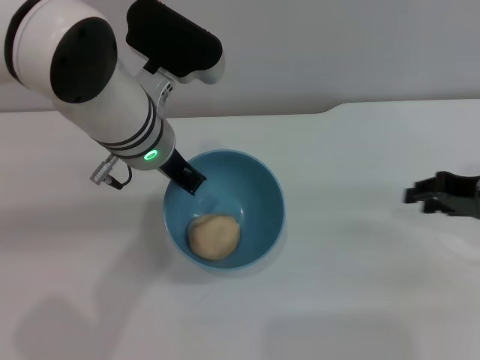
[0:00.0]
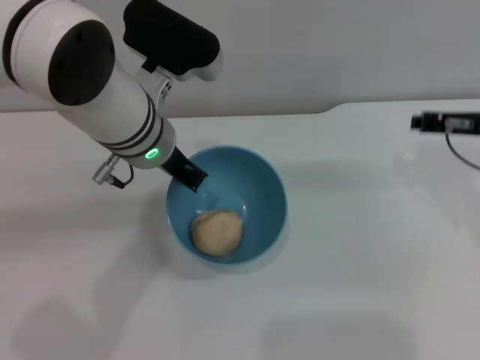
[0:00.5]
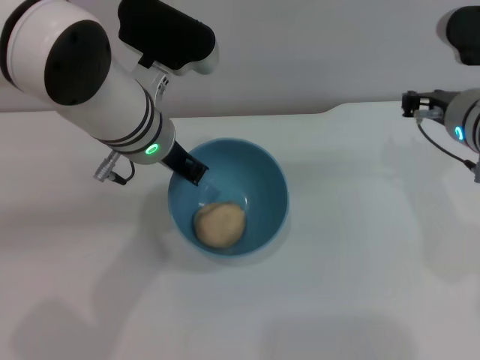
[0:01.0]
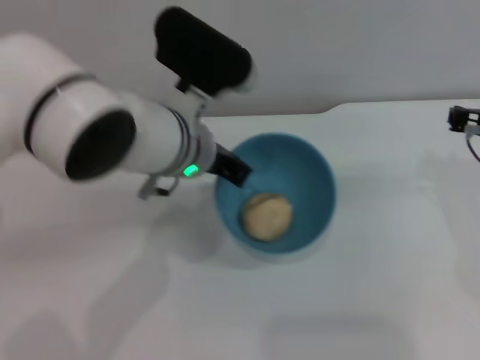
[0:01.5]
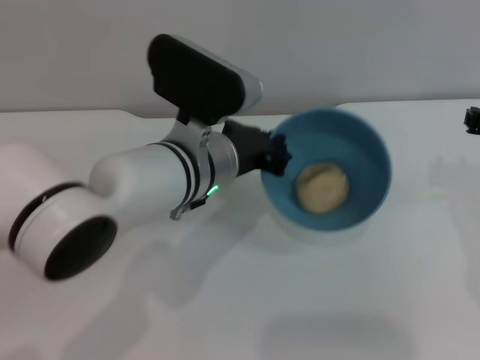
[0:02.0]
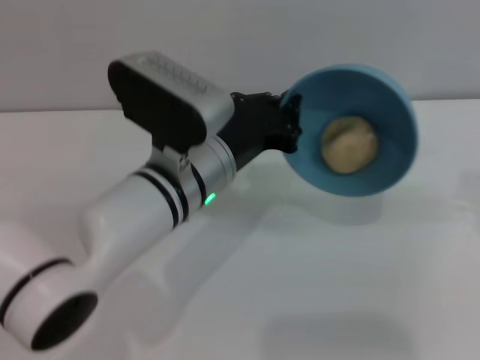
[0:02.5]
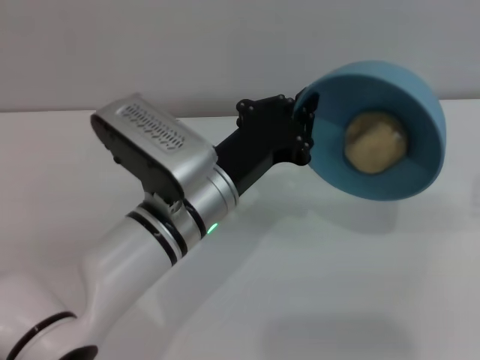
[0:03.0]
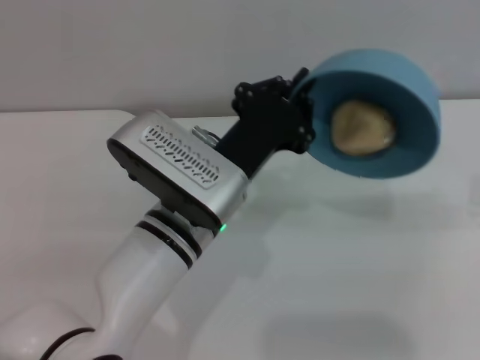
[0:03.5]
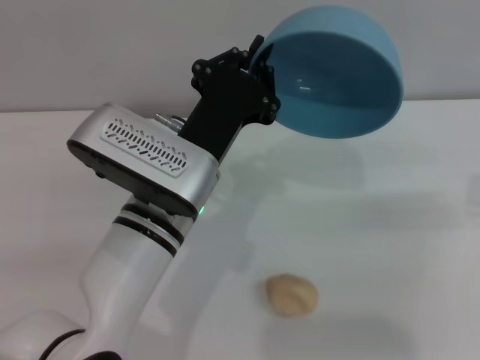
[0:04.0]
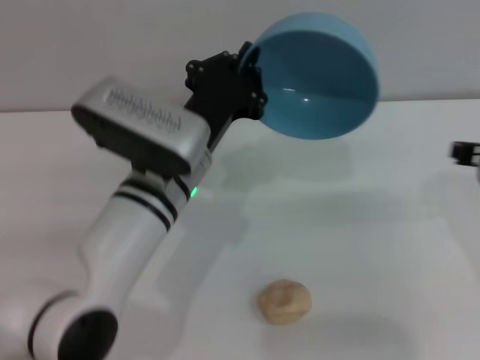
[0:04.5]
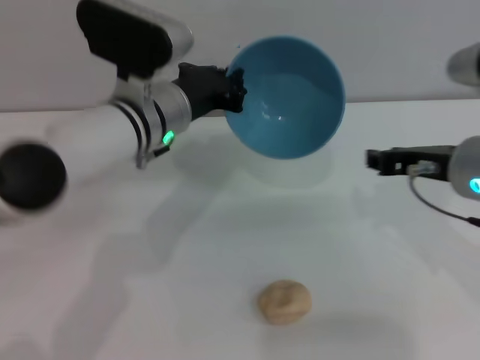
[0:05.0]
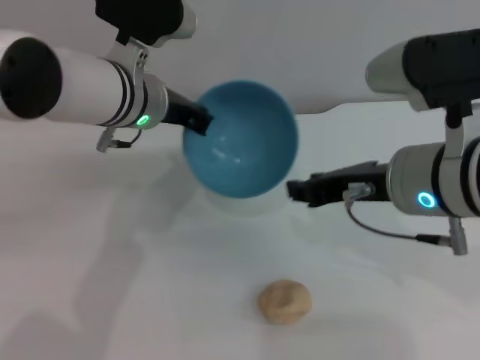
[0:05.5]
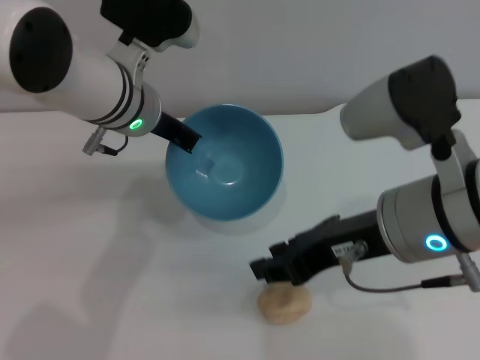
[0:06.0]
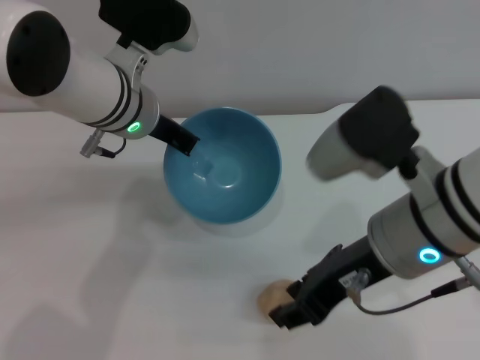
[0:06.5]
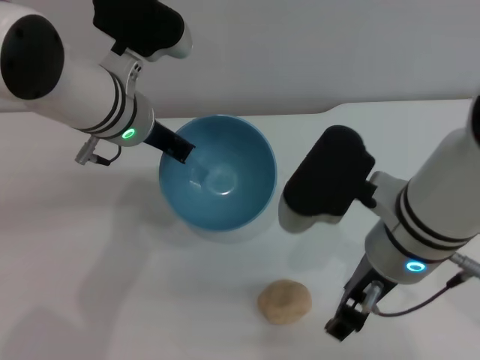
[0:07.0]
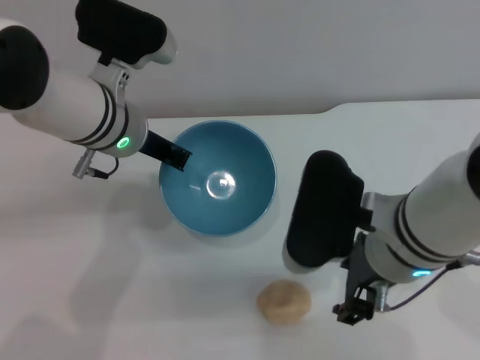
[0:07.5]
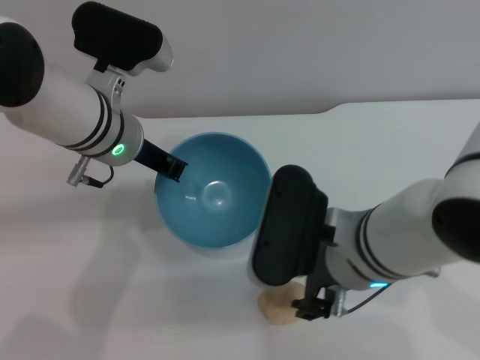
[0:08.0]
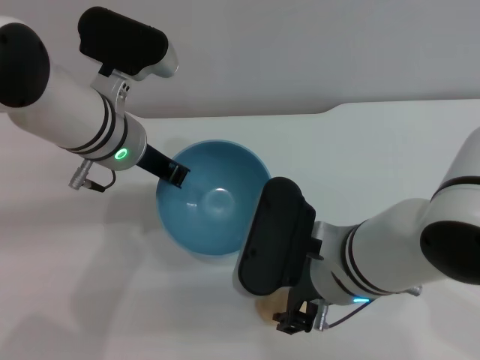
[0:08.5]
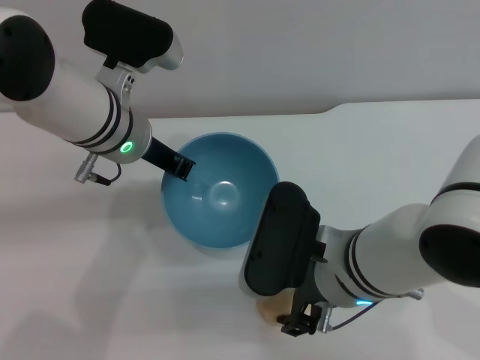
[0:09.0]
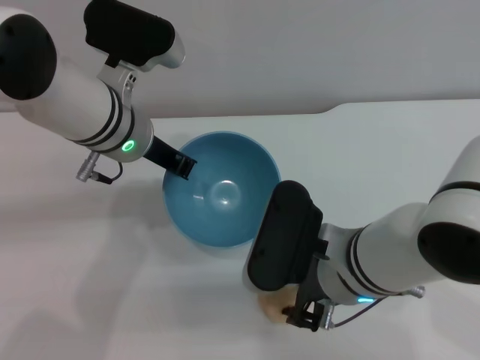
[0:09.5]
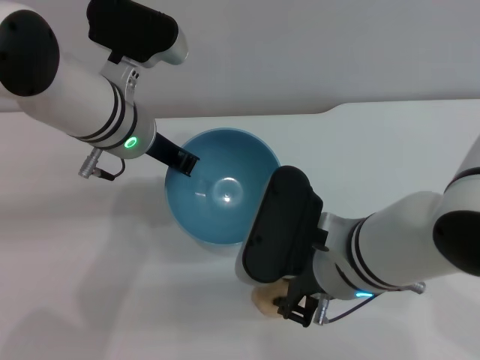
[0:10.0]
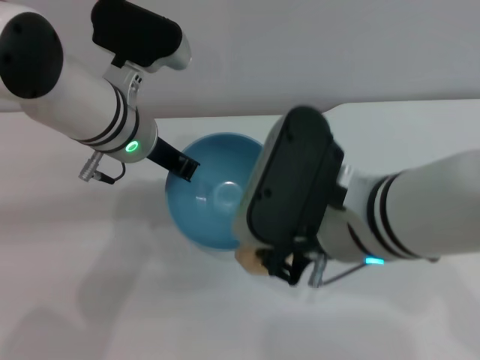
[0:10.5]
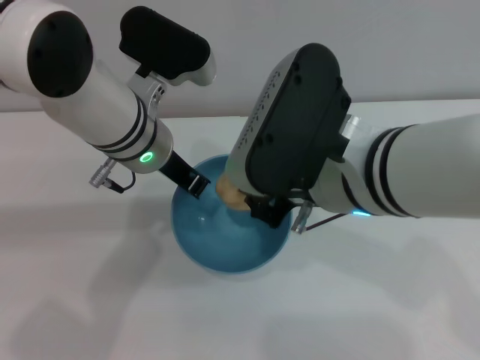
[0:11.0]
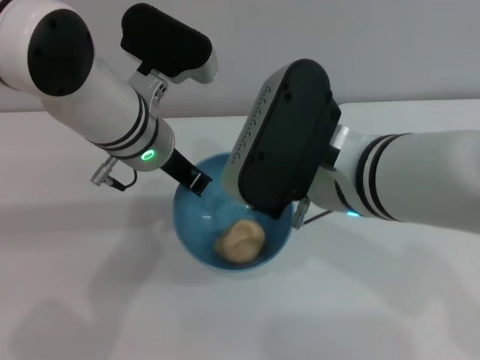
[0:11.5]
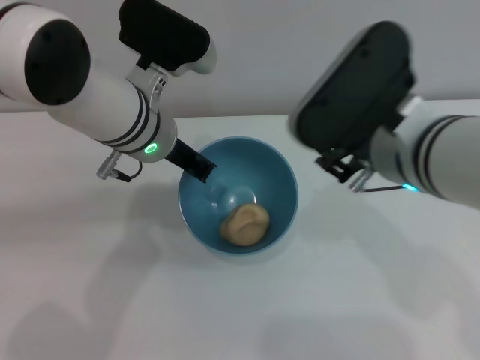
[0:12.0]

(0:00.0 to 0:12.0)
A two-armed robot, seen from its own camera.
Task of the whole recording: put the egg yolk pastry into the blue bowl and pour it out repeatedly.
Step, 0:00.0 - 0:04.0: Pour the egg yolk pastry out of bowl.
Step, 0:04.5 - 0:10.0: Pick up the egg yolk pastry with the right gripper.
Step, 0:10.5 - 0:11.5: Place the egg yolk pastry into the bowl.
0:00.0 - 0:02.0: The left gripper shifts by roughly 5 cm.
0:04.0 - 0:06.0: The right gripper heads to the left, covering about 15 cm. The left gripper is displaced forward and upward by roughly 15 cm.
0:06.0 - 0:08.0: The right gripper is displaced downward by some 5 cm, and opens its fingers.
0:08.0 - 0:10.0: The right gripper closes.
0:10.0 - 0:12.0: The right gripper heads upward, covering about 10 cm, and closes and opens again.

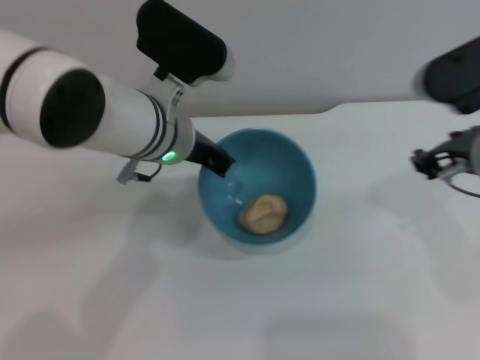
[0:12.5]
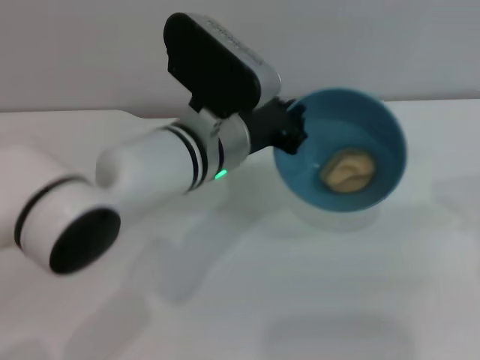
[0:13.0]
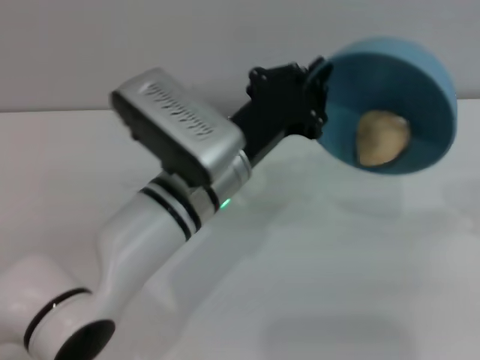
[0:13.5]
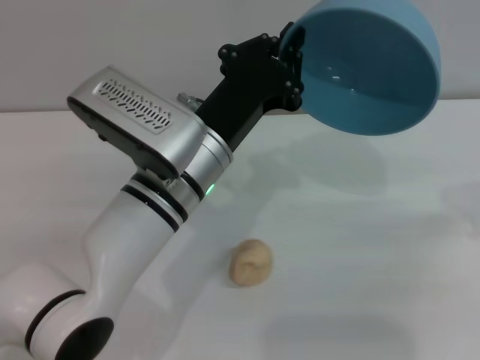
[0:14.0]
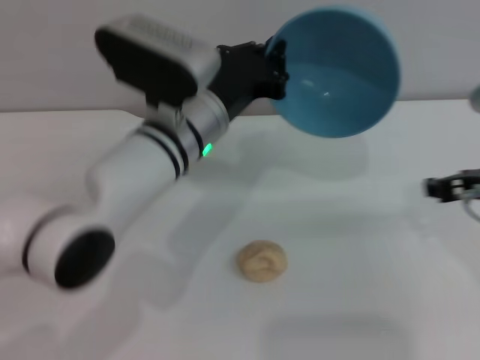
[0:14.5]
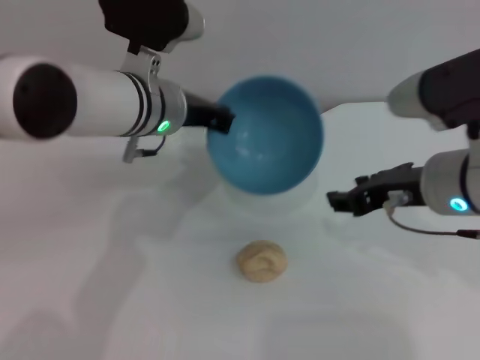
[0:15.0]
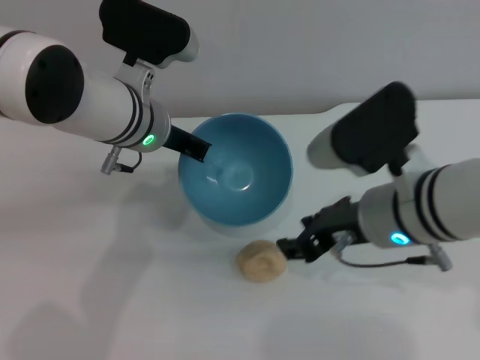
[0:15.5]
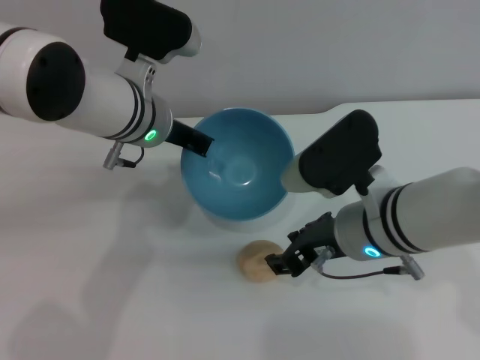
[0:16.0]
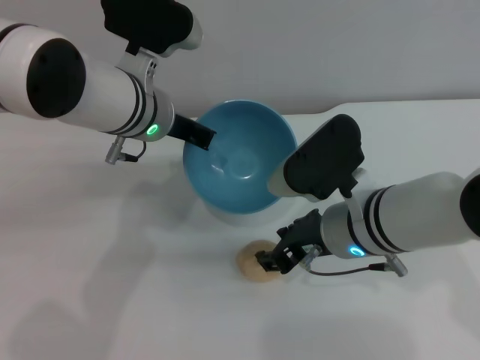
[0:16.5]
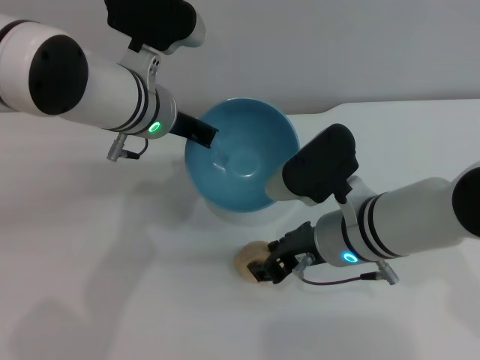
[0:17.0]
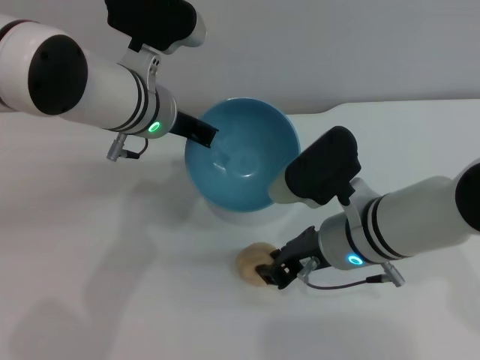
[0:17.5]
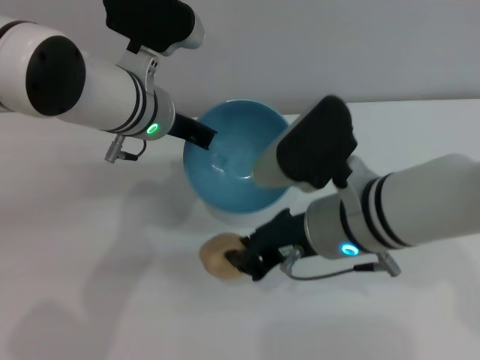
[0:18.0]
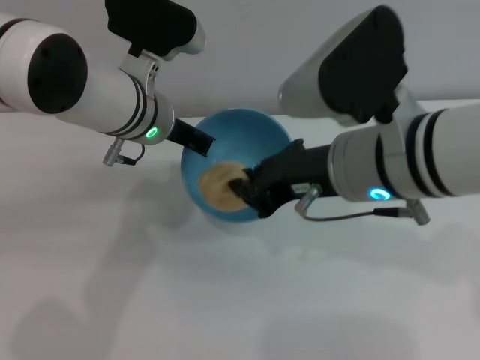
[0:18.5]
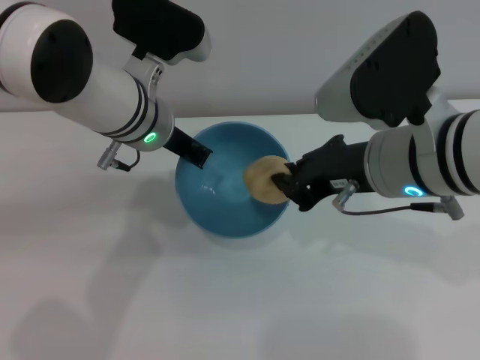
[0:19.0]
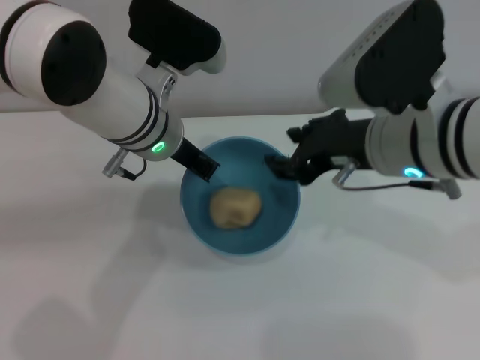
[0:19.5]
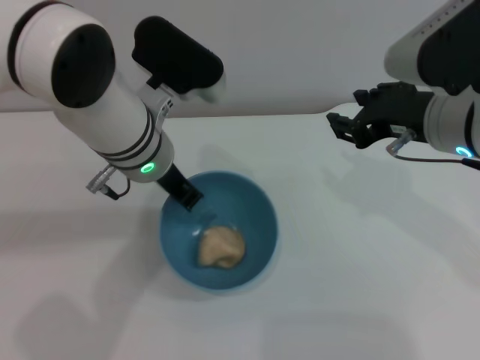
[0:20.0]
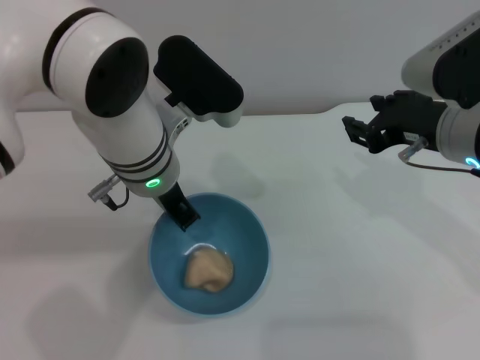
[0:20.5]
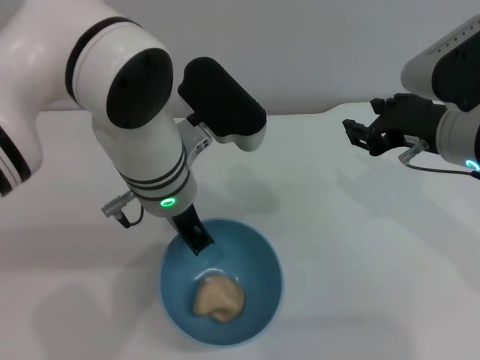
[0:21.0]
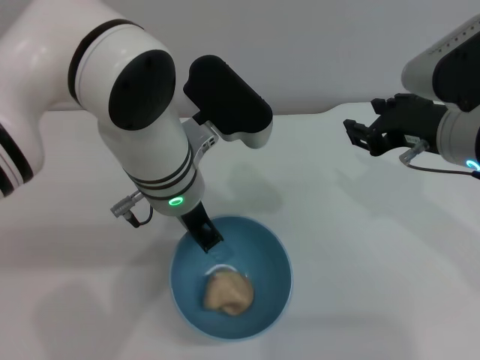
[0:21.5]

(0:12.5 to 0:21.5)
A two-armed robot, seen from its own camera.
Task of the whole recording: put the egg yolk pastry into the blue bowl and pour it out repeatedly.
Step, 0:12.5 - 0:14.0: Pour the egg yolk pastry out of bowl.
Step, 0:14.5 - 0:18.0: Pick up the egg yolk pastry with the right gripper.
Step, 0:18.5 - 0:19.5: Place the egg yolk pastry into the bowl.
0:14.5 - 0:17.0: The right gripper is displaced to the left and downward by some 15 cm, while the left gripper ends up roughly 5 cm from where it was.
0:17.0 - 0:19.5: The right gripper is displaced upward by some 10 cm, and closes and opens again.
0:19.5 - 0:21.5: The right gripper shifts roughly 5 cm to the right.

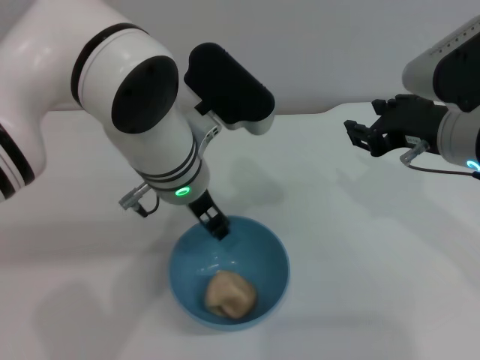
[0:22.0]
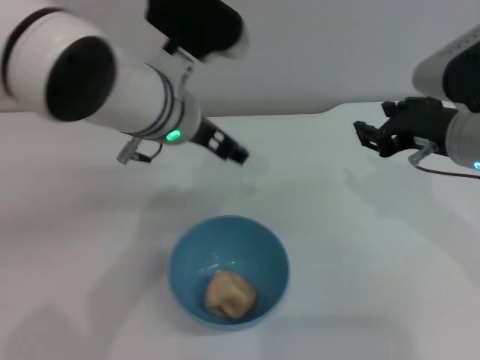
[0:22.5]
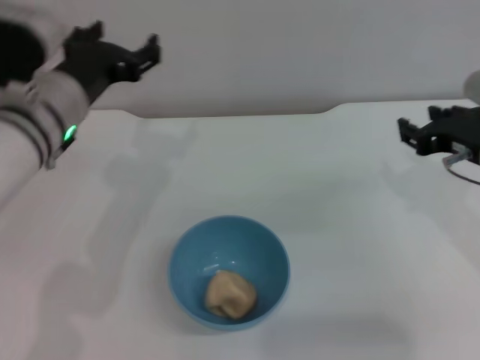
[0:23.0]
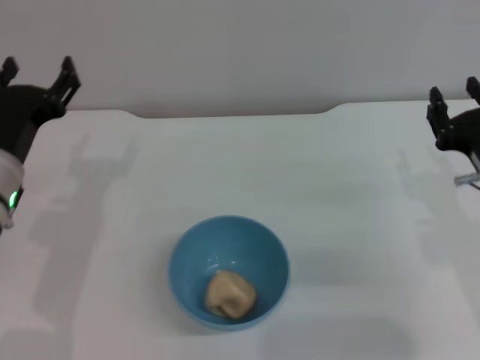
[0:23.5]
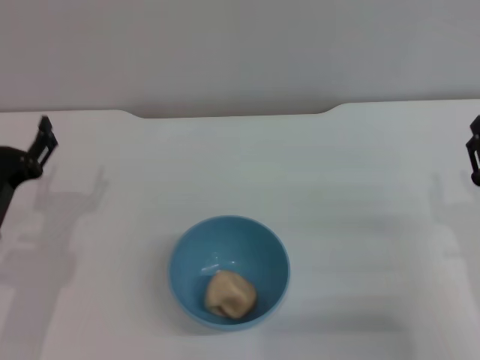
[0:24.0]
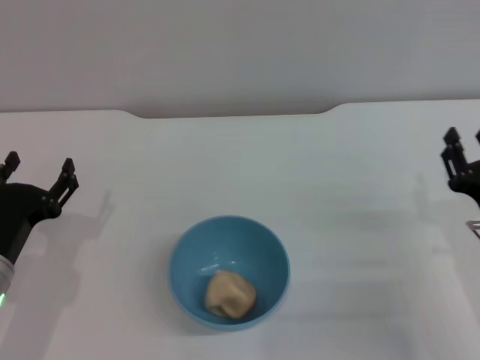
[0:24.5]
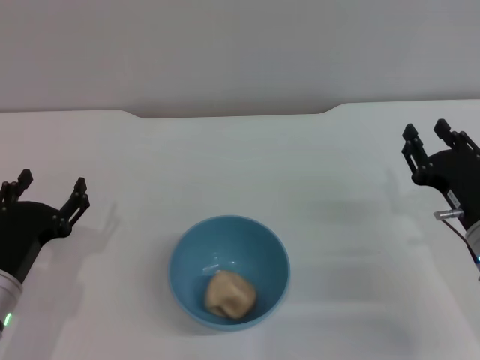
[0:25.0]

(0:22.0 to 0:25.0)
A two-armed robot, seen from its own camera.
Task of the whole recording: put the egg yolk pastry into the blue bowl and pour it out repeatedly.
0:22.0 - 0:23.5: The right gripper moves downward and to the right, approximately 10 cm. Meanwhile the left gripper shifts approximately 20 cm to the left, and opens its fingers.
0:23.5 - 0:25.0: The left gripper heads backward and downward, covering approximately 10 cm. Meanwhile the right gripper travels downward by about 5 cm.

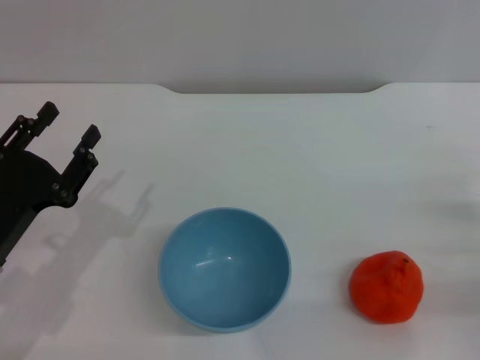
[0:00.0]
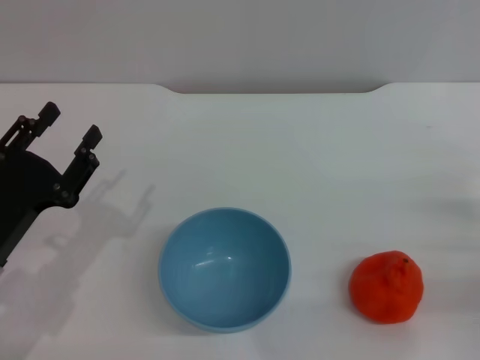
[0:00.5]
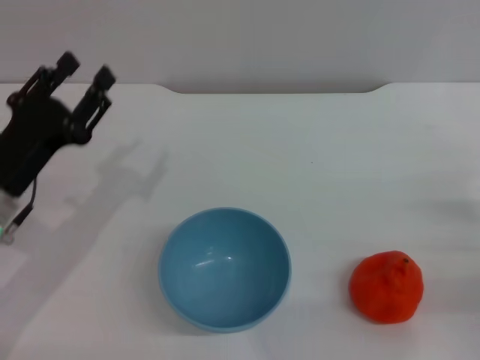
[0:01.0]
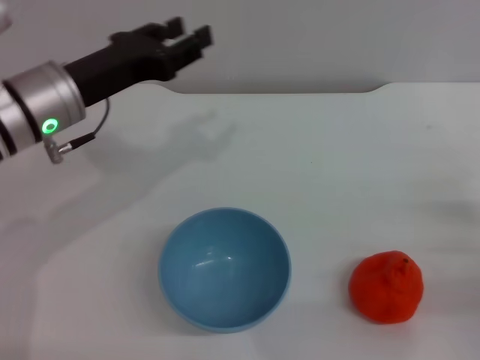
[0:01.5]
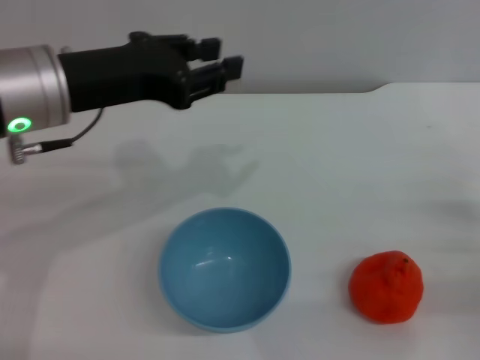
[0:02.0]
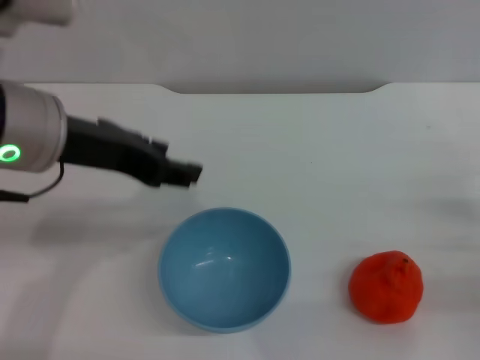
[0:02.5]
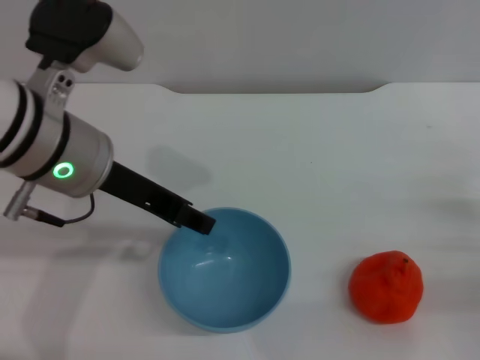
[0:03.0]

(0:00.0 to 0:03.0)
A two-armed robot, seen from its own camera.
Task of the whole recording: put the orange into the blue bowl and pour it out repeatedly.
0:00.0 - 0:01.5: The left gripper goes some 15 cm forward, upward and to the right.
0:01.5 - 0:03.0: The left gripper shifts roughly 5 cm upward.
